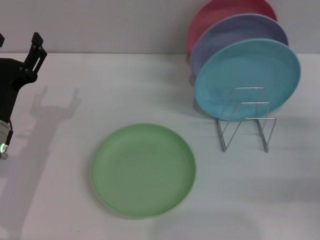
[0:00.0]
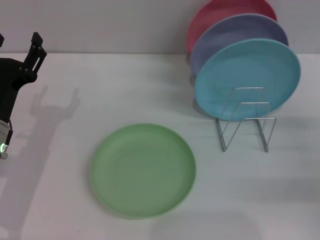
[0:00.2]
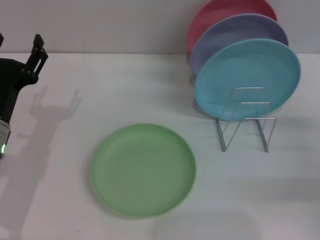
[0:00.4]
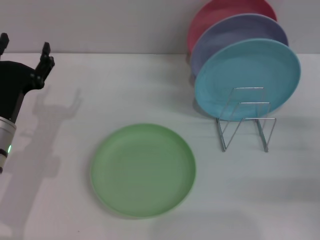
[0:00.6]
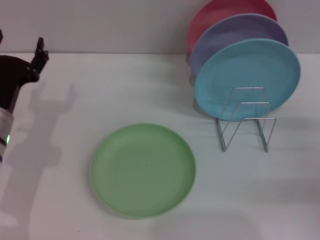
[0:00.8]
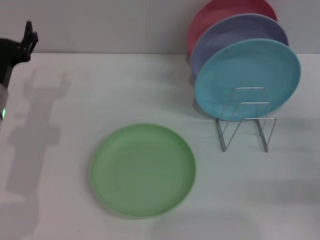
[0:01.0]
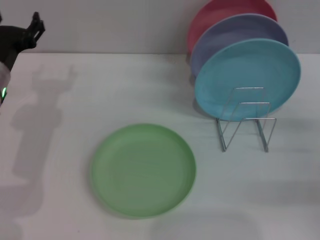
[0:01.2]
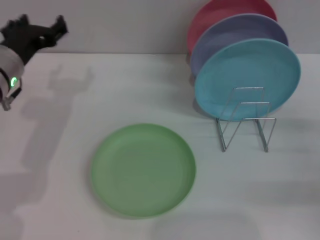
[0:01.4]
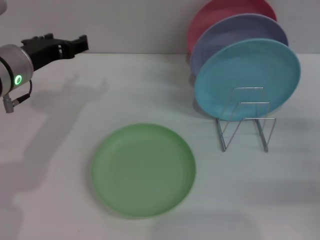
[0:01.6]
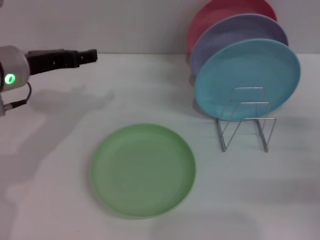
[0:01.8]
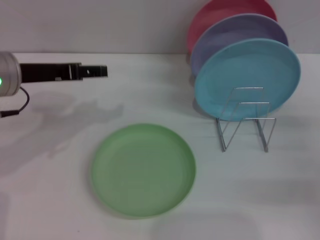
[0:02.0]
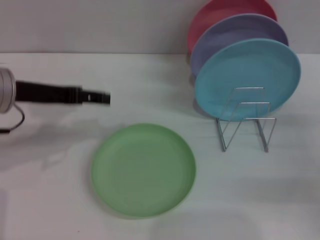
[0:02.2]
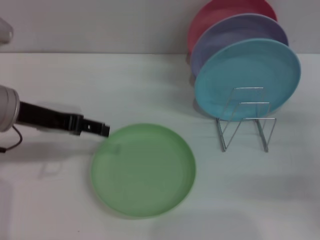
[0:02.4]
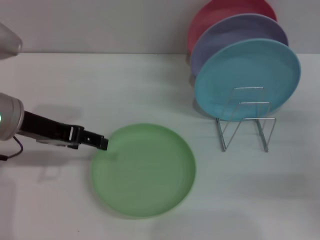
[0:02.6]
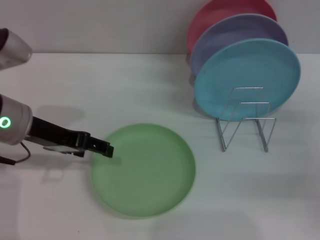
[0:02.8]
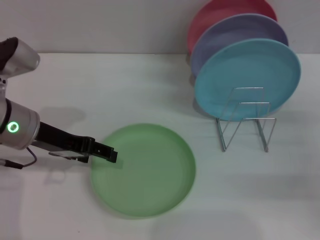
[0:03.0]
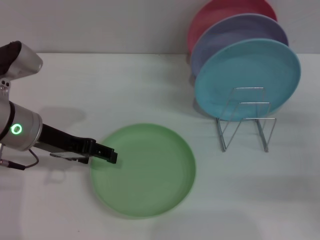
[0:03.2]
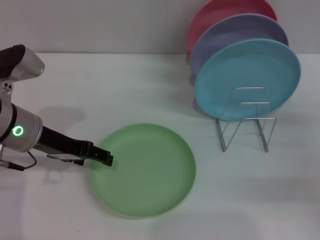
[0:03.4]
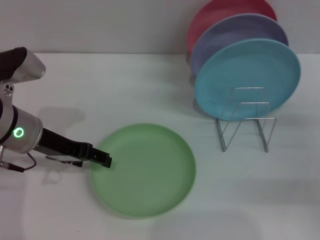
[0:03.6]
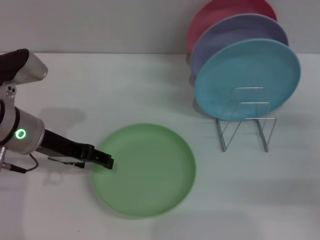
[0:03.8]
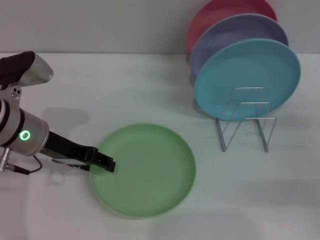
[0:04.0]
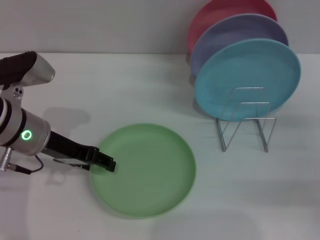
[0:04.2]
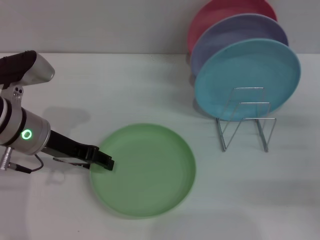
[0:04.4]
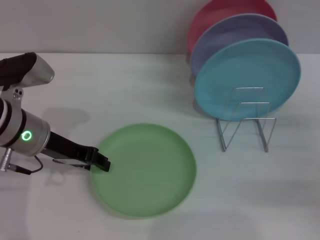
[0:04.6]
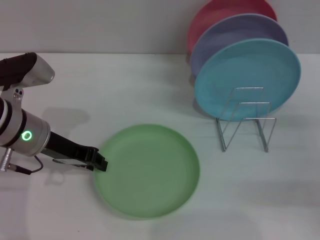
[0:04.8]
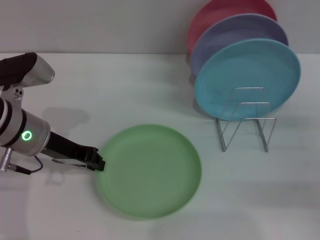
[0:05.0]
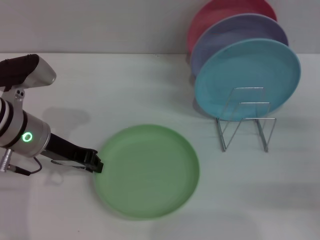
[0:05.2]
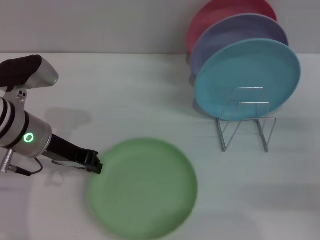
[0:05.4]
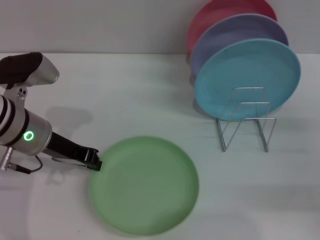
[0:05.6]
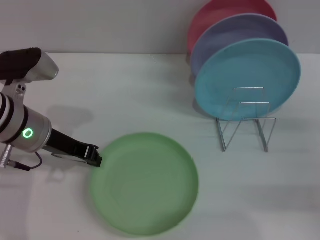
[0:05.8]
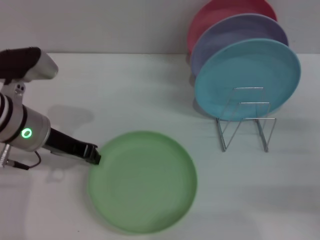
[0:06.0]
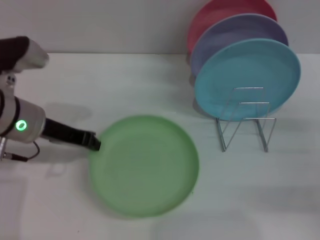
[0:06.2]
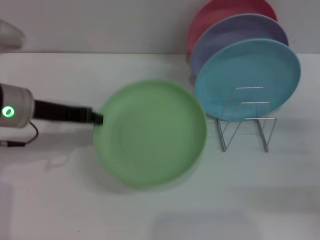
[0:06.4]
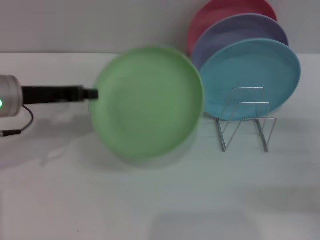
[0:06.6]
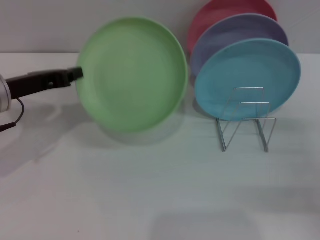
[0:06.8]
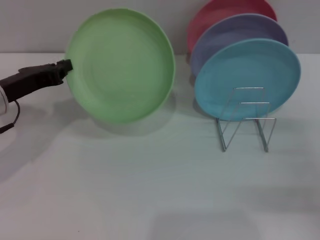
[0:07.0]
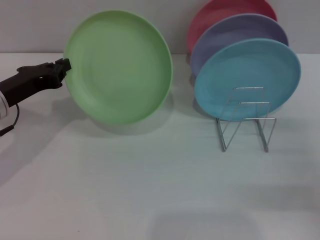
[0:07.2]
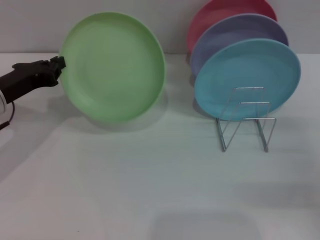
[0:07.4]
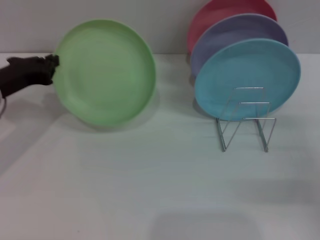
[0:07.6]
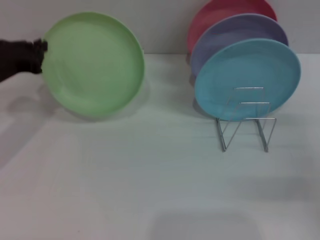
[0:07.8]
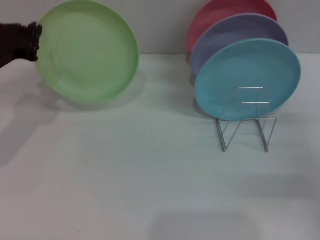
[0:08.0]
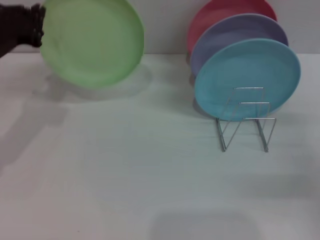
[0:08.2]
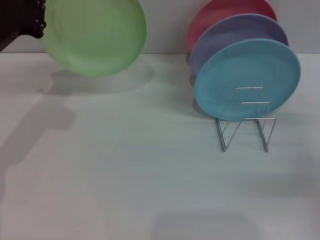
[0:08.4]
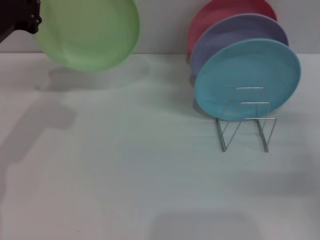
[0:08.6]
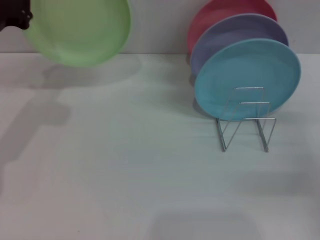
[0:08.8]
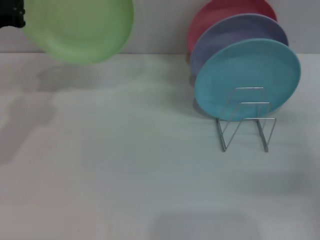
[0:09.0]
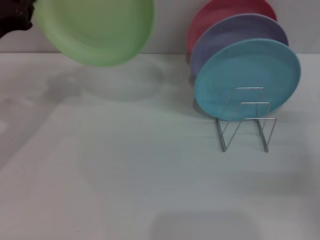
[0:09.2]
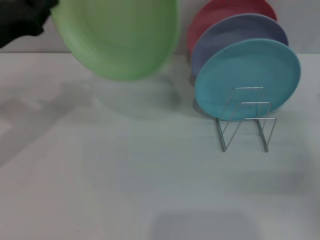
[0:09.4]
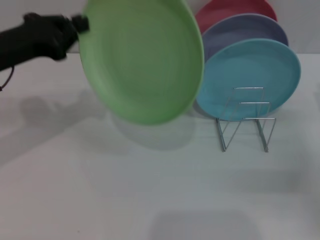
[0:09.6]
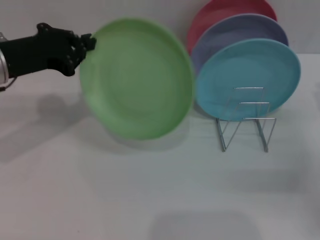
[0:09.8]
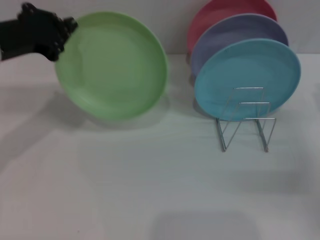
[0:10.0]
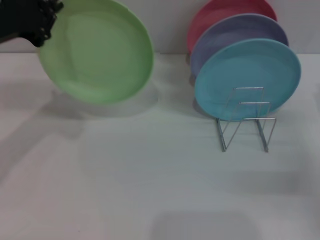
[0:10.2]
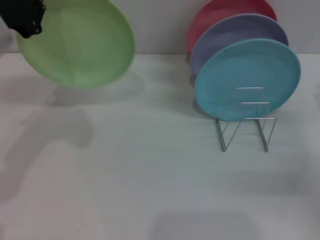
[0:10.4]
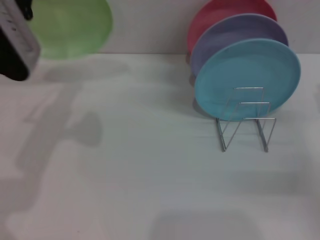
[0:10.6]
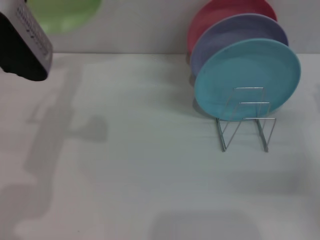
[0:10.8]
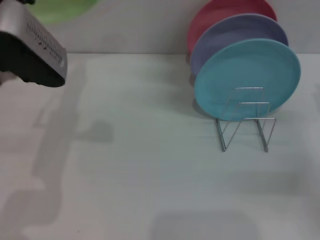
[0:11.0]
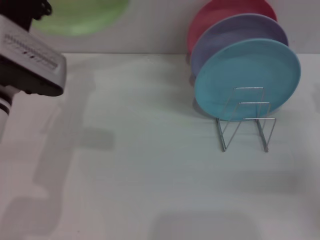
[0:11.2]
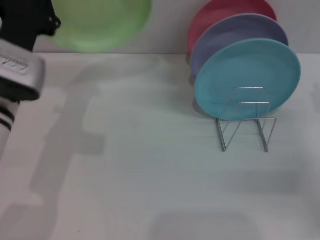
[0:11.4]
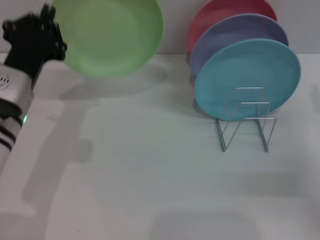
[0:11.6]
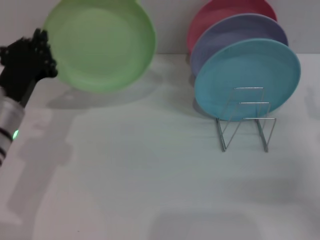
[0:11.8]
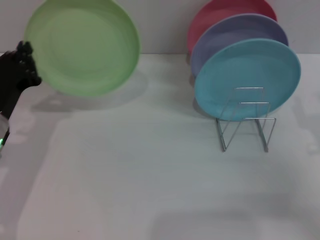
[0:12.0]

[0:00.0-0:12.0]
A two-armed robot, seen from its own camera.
Task of the whole recording: Grip the plate with one hand, pass it to the other, then set it on the shelf.
Step, 0:00.0 to 0:07.8: Pick up the plate with the left gripper.
0:00.0 to 0:01.6: The left gripper goes some 10 cm upward and forward.
0:03.0 to 0:04.4: There are only small adjustments of the grippers.
0:04.4 to 0:06.0: The left gripper closes.
0:06.0 to 0:07.6: The left gripper goes some 5 cm to the left.
0:07.6 to 0:09.0: The left gripper moves upward, approximately 5 cm.
0:09.0 to 0:10.4: The left gripper travels upward by roughly 5 cm.
0:10.4 to 0:12.0: The left gripper goes approximately 15 cm downward.

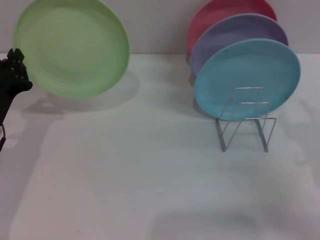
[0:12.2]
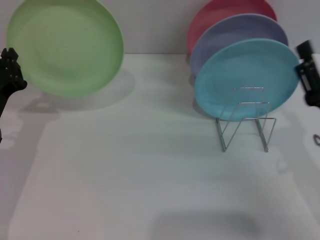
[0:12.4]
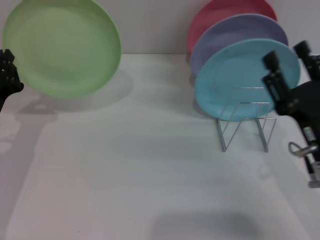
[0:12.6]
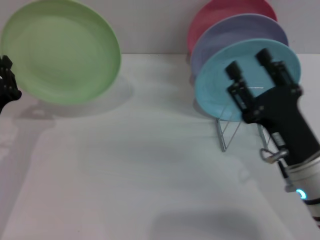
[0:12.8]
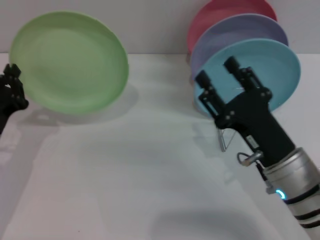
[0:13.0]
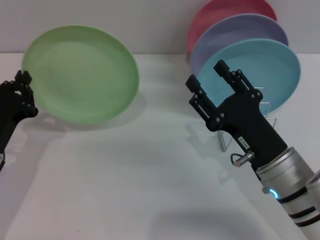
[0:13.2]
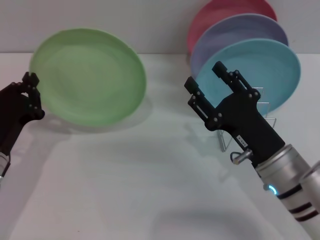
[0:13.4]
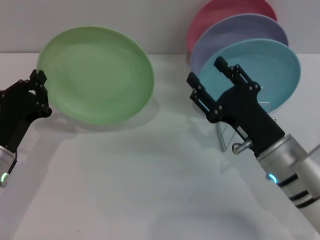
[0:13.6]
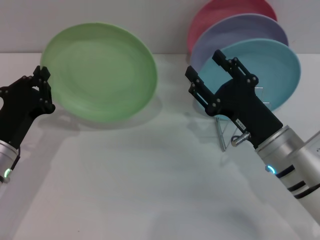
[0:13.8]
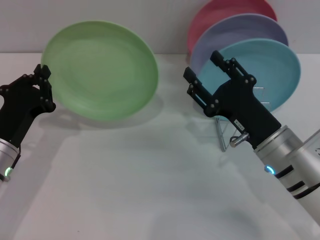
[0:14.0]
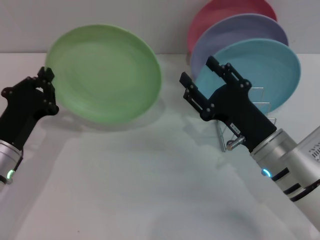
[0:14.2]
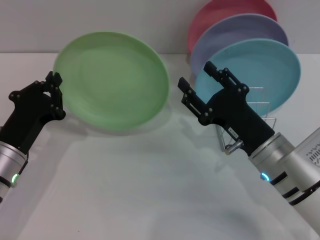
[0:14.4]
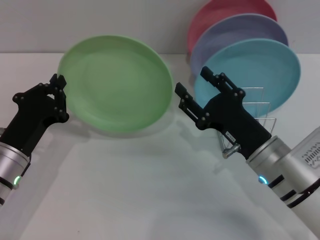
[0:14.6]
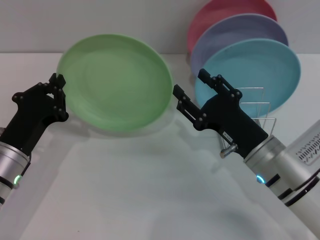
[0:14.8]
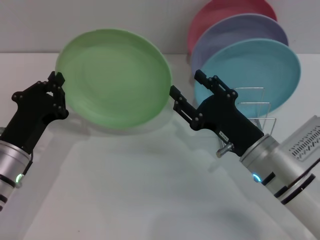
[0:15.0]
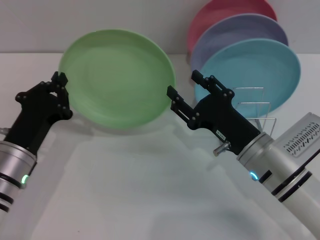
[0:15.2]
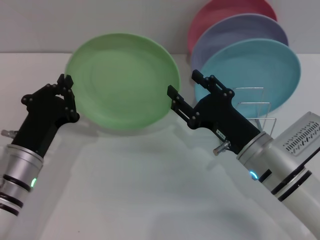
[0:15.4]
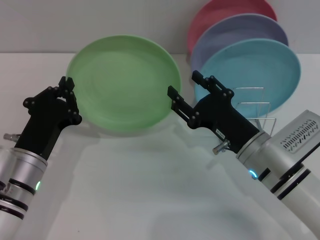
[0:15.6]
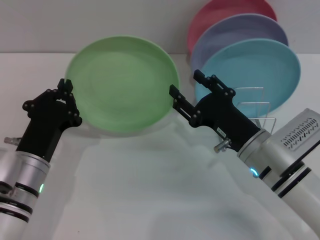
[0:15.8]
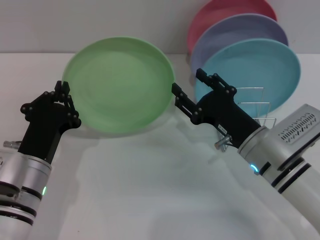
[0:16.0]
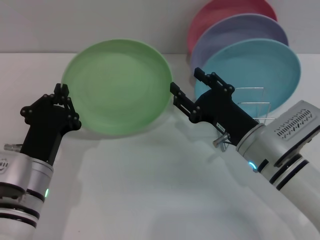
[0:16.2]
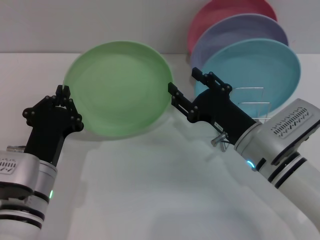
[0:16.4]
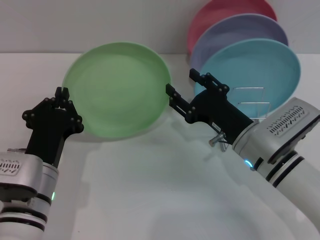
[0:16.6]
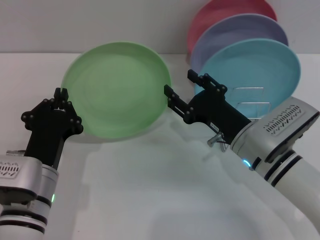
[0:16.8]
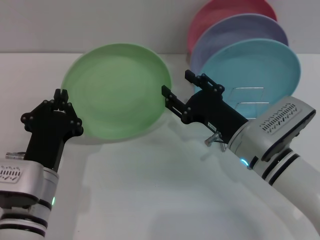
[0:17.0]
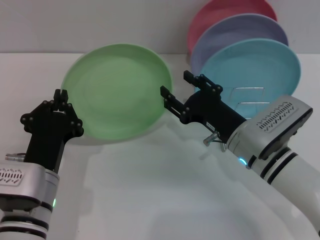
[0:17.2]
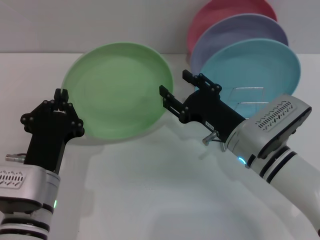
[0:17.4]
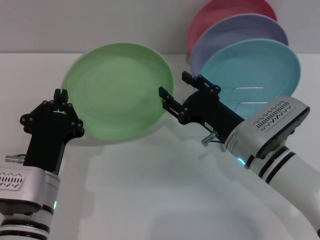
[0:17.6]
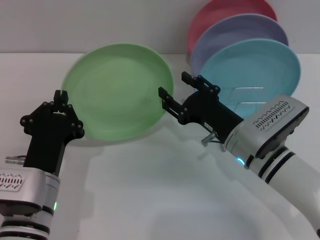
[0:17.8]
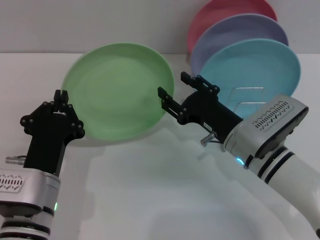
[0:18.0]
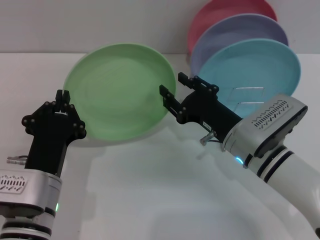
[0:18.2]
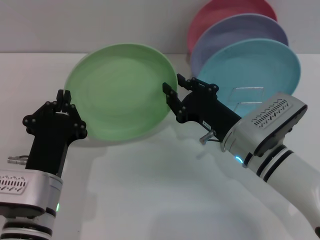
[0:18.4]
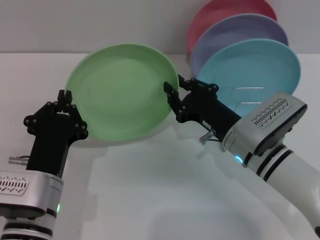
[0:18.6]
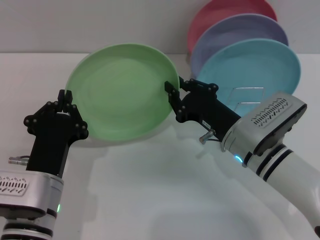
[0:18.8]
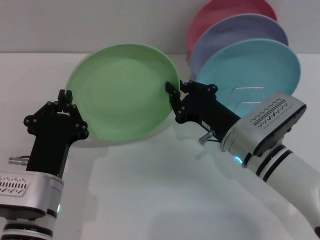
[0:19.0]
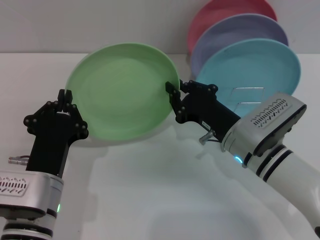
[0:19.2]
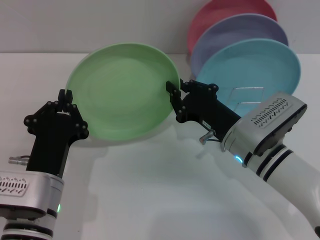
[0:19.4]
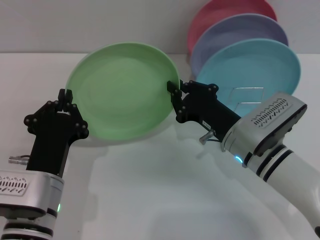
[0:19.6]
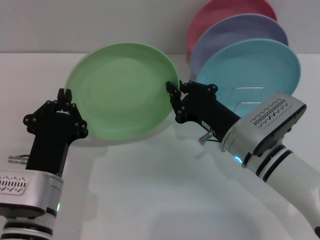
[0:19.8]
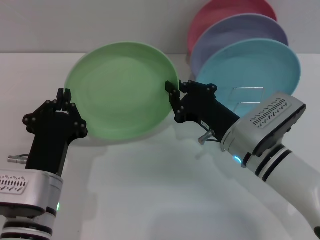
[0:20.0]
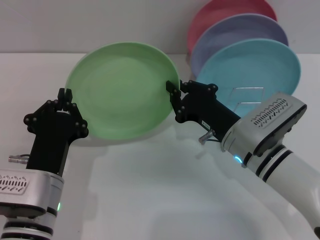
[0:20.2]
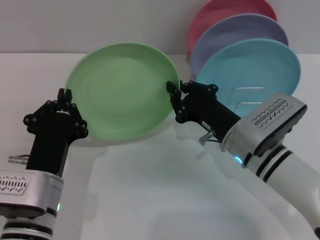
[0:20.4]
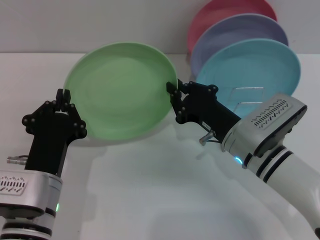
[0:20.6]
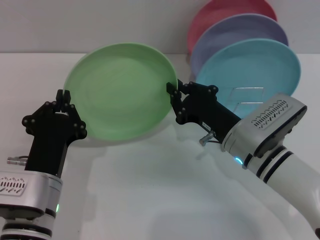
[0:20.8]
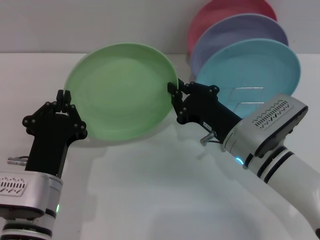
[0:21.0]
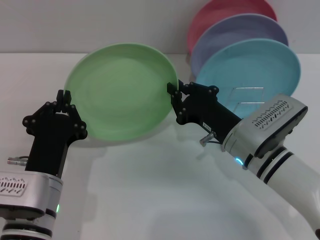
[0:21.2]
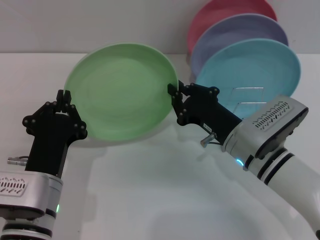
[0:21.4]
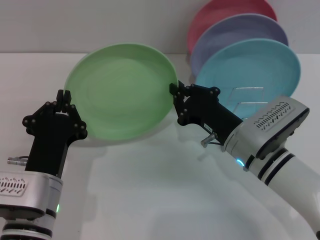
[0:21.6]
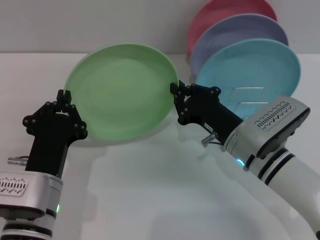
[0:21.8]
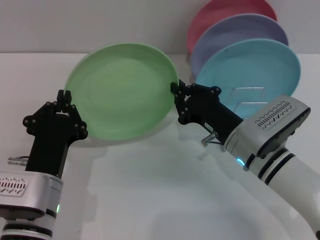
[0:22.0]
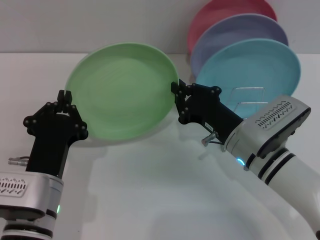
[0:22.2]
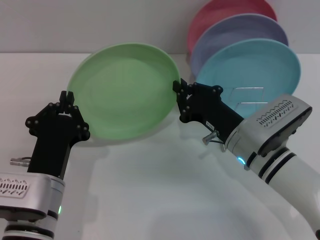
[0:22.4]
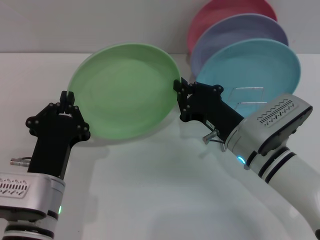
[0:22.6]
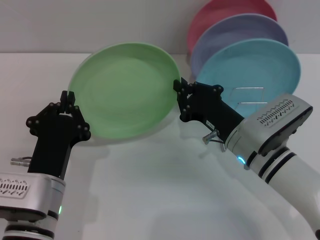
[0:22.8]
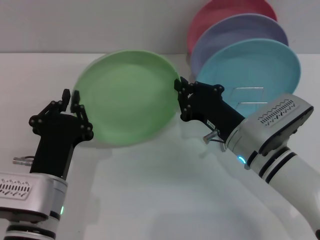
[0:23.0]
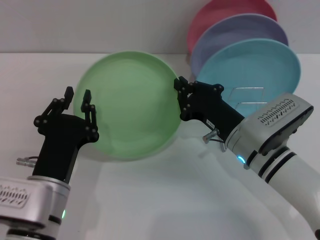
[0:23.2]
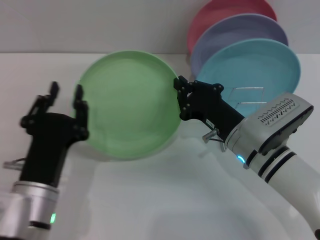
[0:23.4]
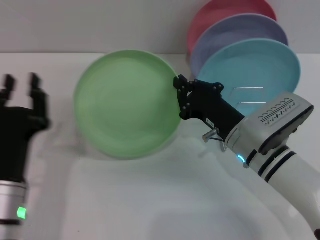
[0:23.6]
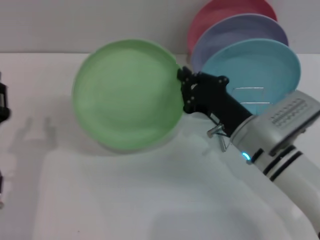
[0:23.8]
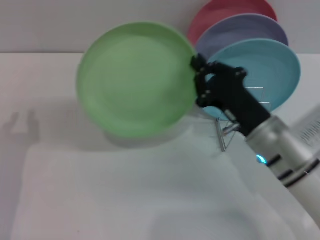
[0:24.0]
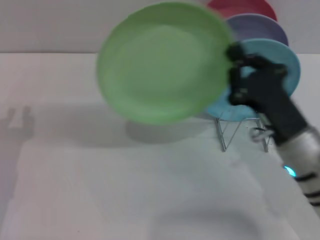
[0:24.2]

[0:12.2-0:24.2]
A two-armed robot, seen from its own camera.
Task of the whole recording: Grip the plate with one hand, pass it to the other, then set it on the shelf.
Step, 0:12.2 to 0:23.6: Pass the plate from the left gripper to the right gripper.
0:12.2 to 0:13.8: The right gripper heads to the left, covering approximately 10 cm.
0:15.2 to 0:16.6: The left gripper moves some 5 cm.
0:16.6 to 0:18.2: The grippers make only small movements.
0:18.2 to 0:19.8: The right gripper closes up.
0:19.8 to 0:22.6: Both grippers stay about where they are.
0:22.6 to 0:24.2: The left gripper goes about 15 cm to the left, and opens its fingers, while the right gripper heads backward, covering some 5 cm.
